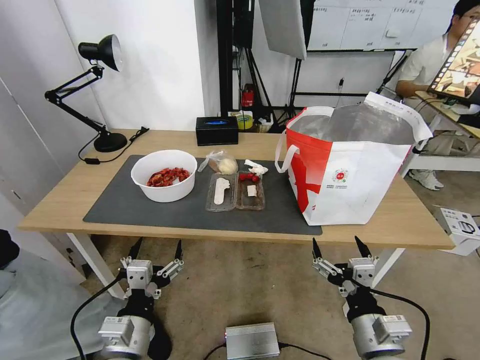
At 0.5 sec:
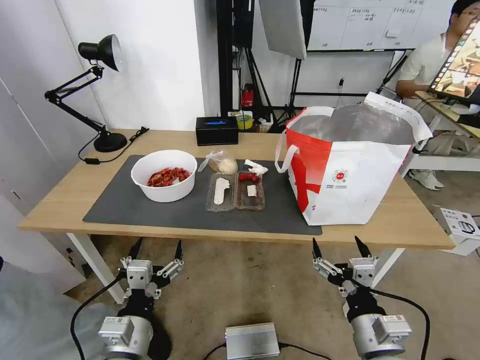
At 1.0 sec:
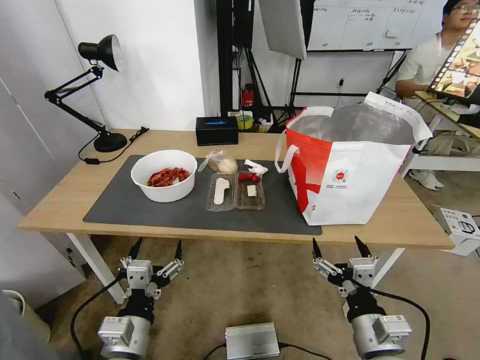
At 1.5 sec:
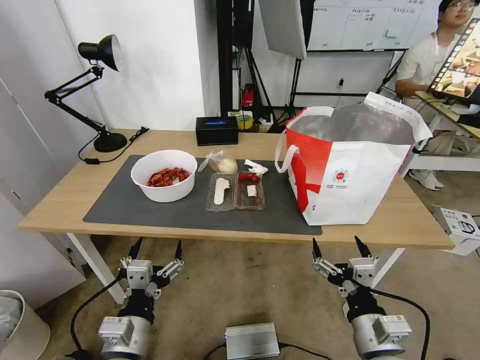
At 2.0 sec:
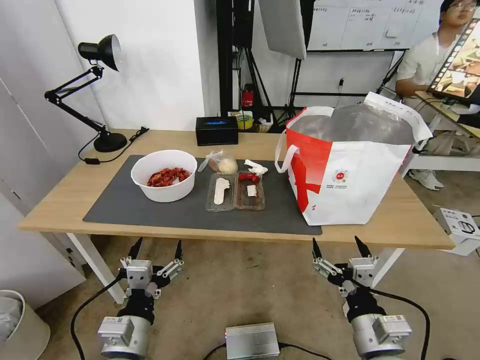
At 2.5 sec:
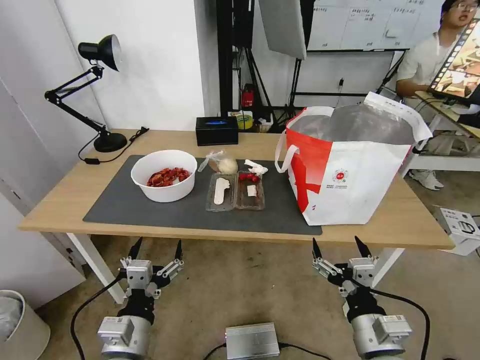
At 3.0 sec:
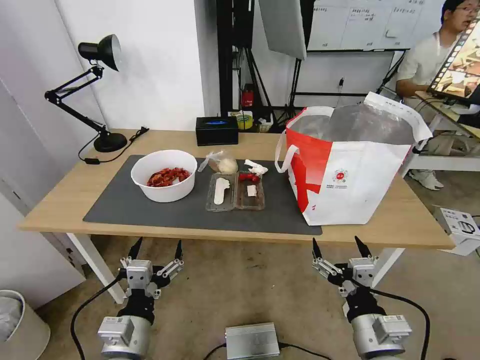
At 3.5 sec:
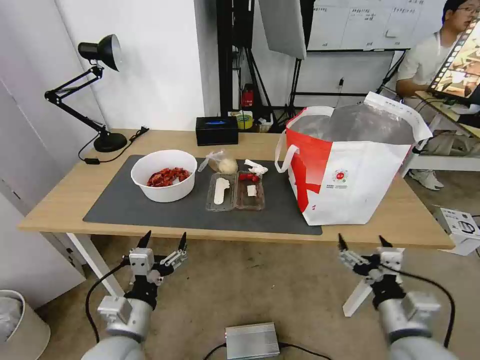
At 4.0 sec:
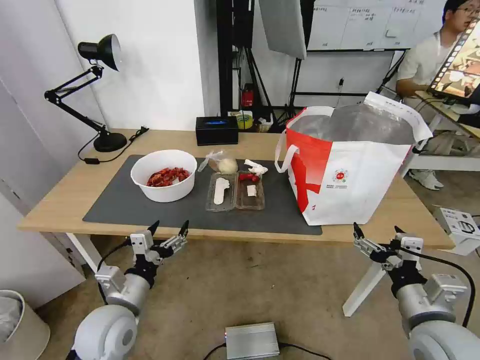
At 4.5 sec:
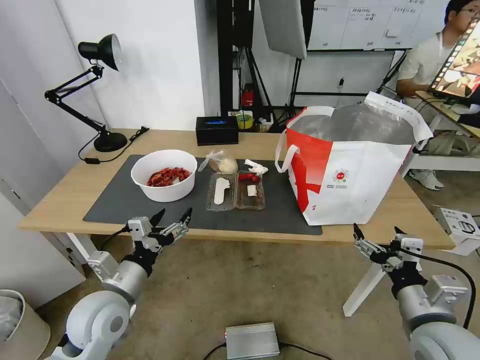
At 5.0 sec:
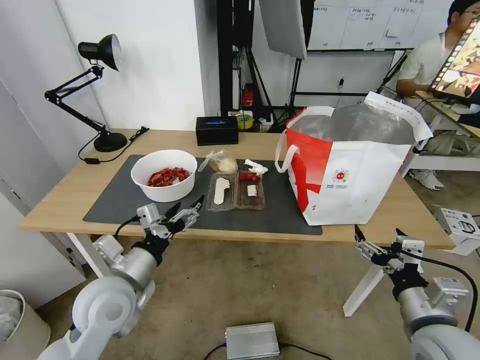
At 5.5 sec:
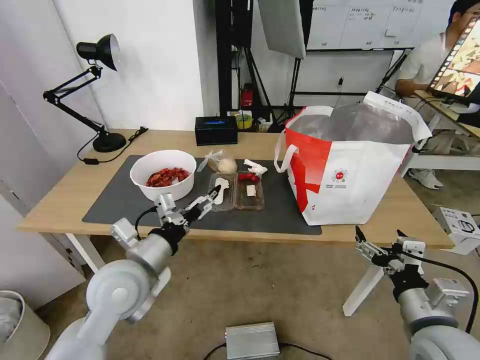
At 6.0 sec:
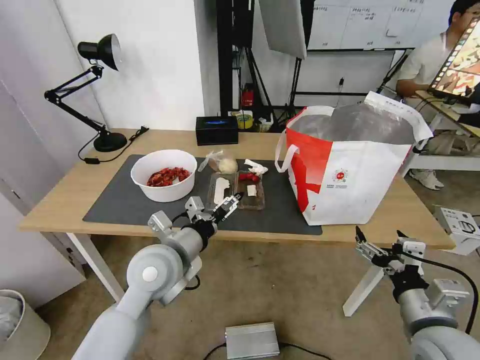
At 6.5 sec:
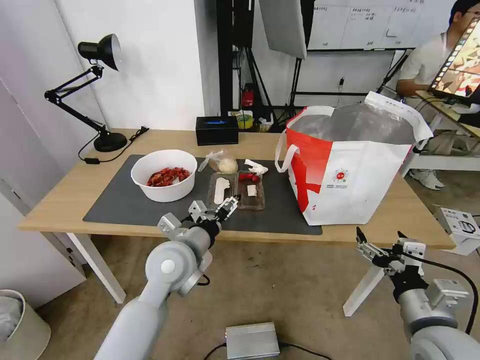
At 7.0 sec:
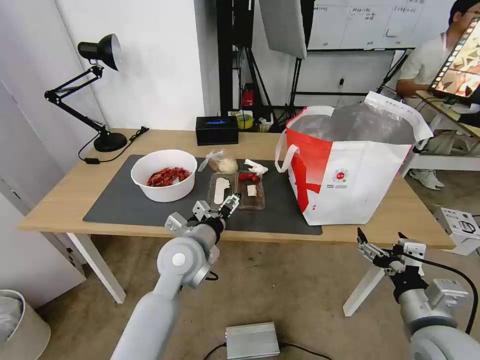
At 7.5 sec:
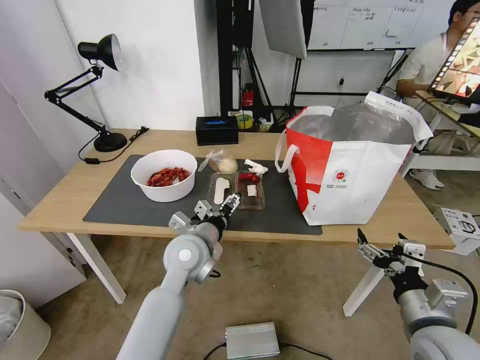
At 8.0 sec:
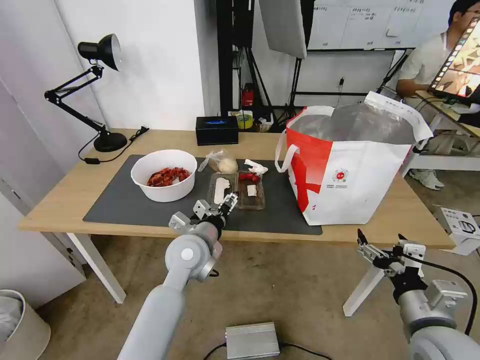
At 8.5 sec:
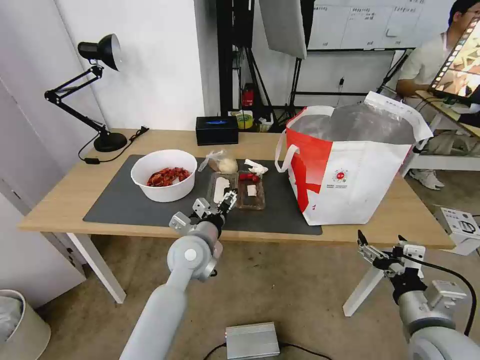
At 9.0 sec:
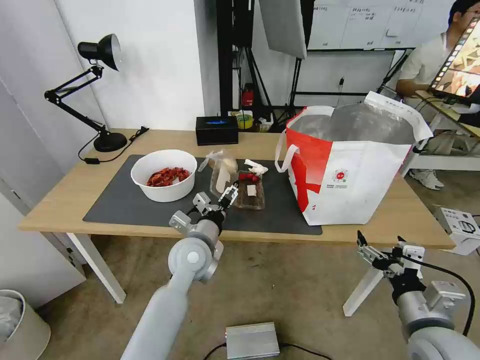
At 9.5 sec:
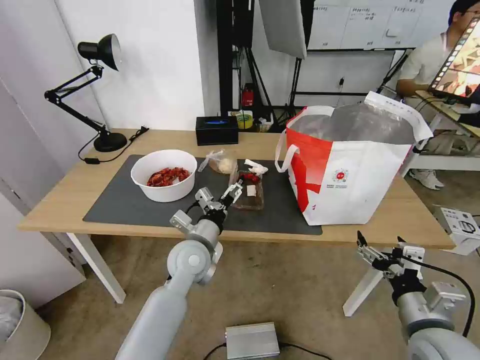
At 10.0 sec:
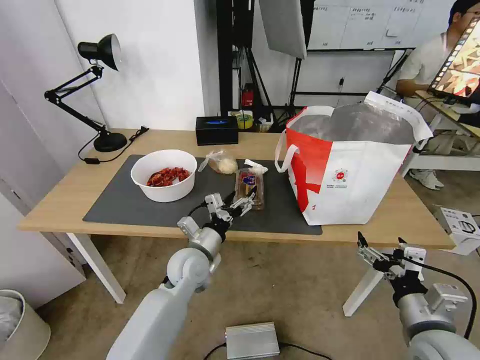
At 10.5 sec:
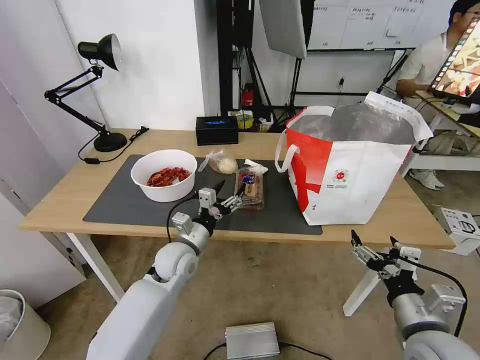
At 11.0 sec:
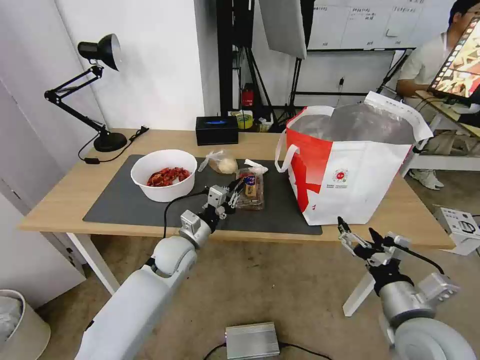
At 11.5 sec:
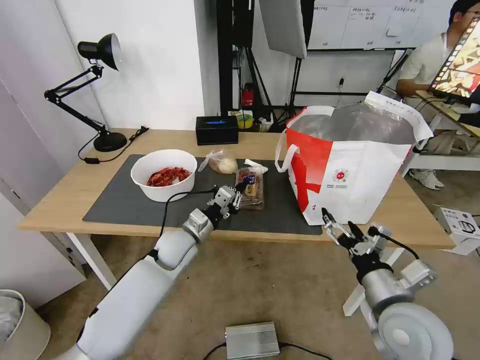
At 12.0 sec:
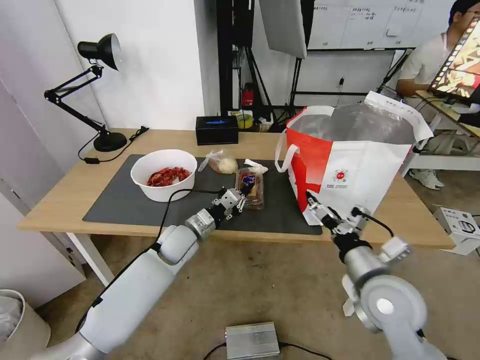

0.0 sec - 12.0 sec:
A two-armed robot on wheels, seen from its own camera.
Task of the whole recording: Pick up the trash from the table and place it into the takeout bag.
2.0 sec - 4.0 sec: The right gripper shifts some 10 cm to the right. Meanwhile the left gripper moves forward, roughly 10 cm.
4.0 sec - 6.0 sec: The left gripper is displaced to the right, upward and forward by approximately 15 cm.
6.0 sec - 8.0 sec: The left gripper shifts some 10 cm forward and downward.
8.0 sec - 10.0 sec: The left gripper goes about 5 cm downward.
10.0 sec - 12.0 sec: The left gripper is displaced forward by some 5 cm, and closes. Meanwhile the right gripper shifts approximately 10 cm forward and to the left.

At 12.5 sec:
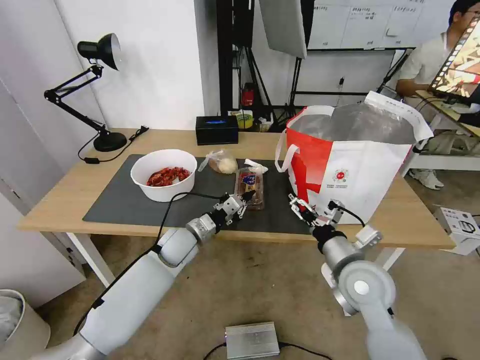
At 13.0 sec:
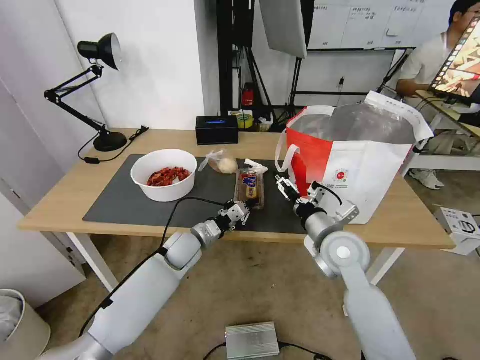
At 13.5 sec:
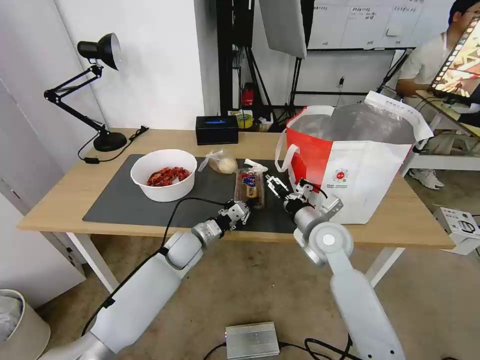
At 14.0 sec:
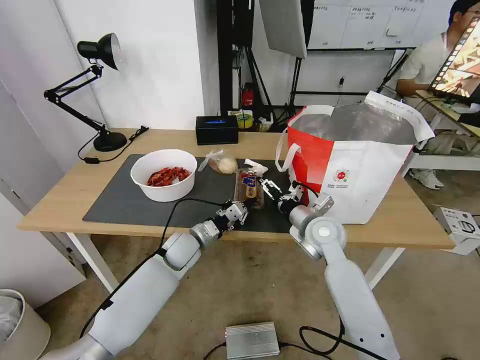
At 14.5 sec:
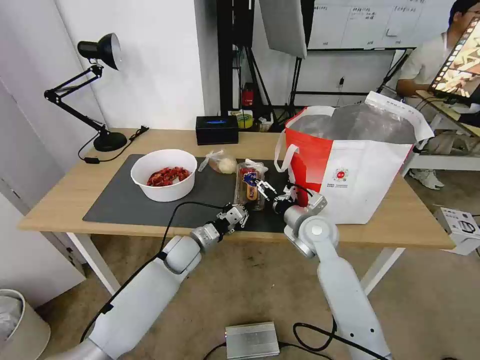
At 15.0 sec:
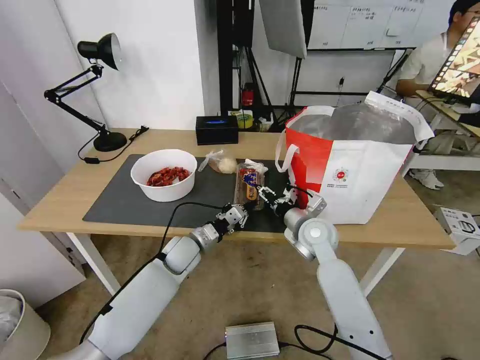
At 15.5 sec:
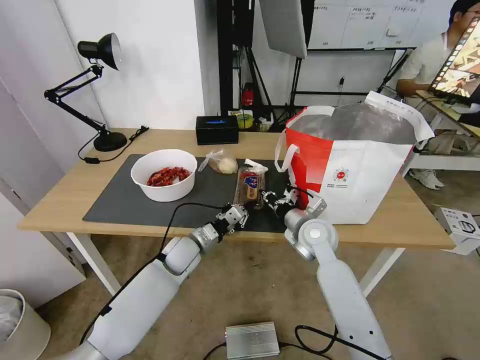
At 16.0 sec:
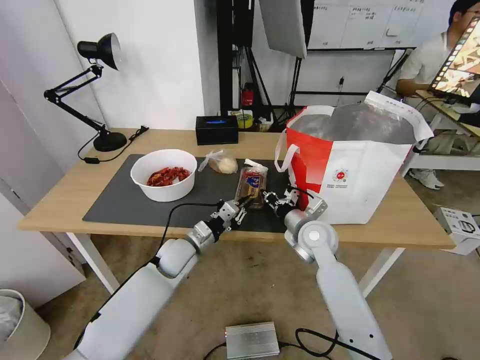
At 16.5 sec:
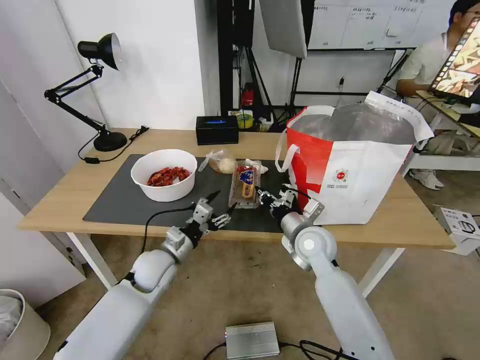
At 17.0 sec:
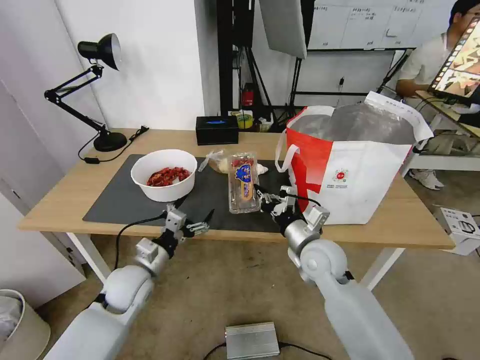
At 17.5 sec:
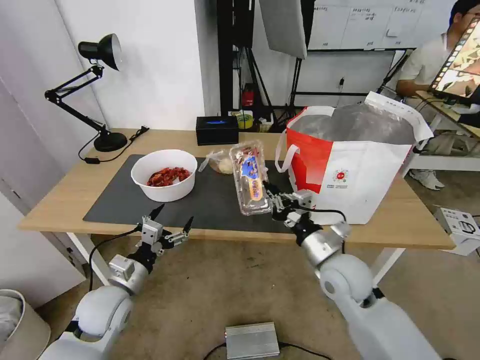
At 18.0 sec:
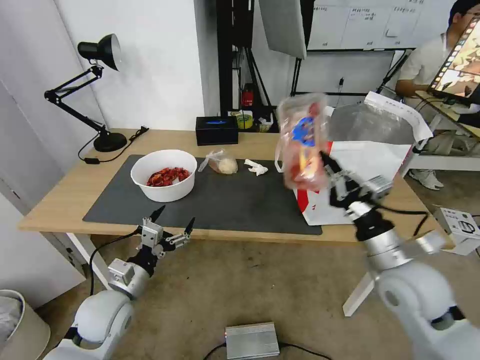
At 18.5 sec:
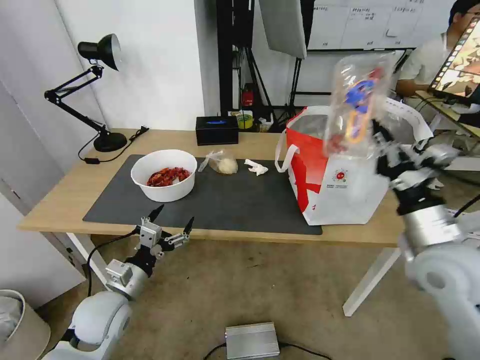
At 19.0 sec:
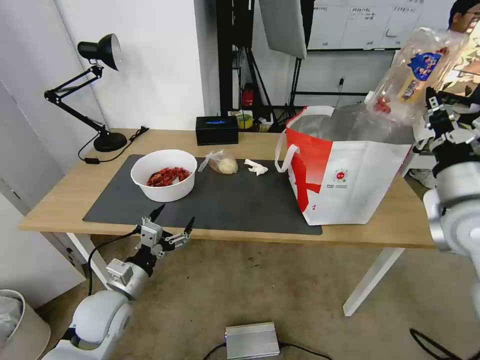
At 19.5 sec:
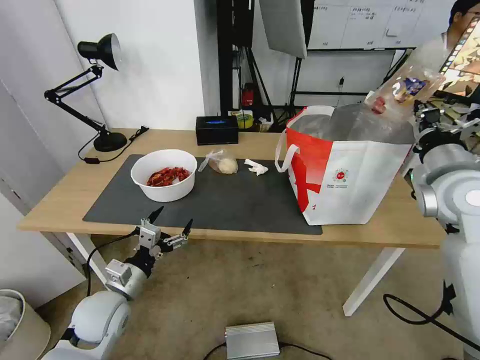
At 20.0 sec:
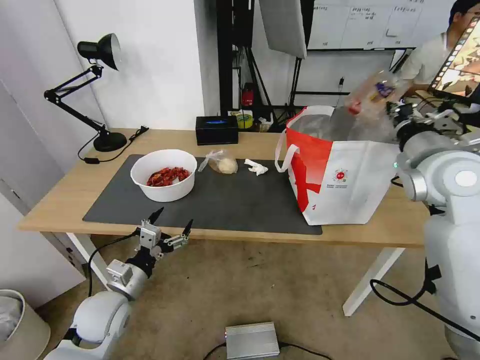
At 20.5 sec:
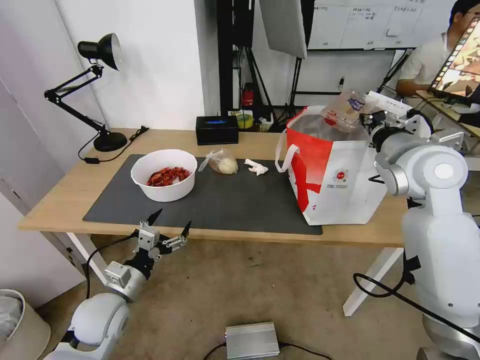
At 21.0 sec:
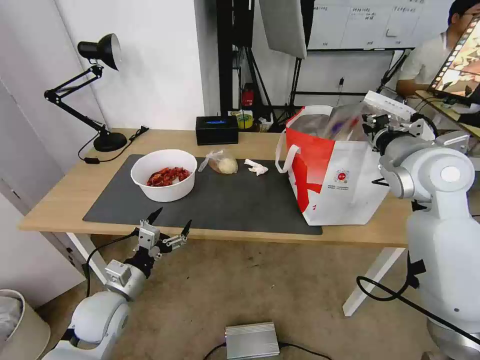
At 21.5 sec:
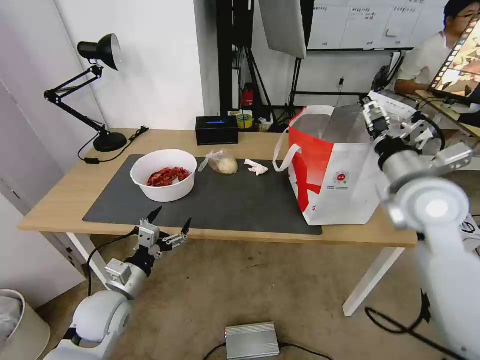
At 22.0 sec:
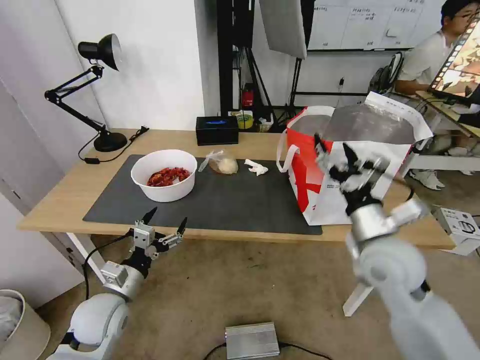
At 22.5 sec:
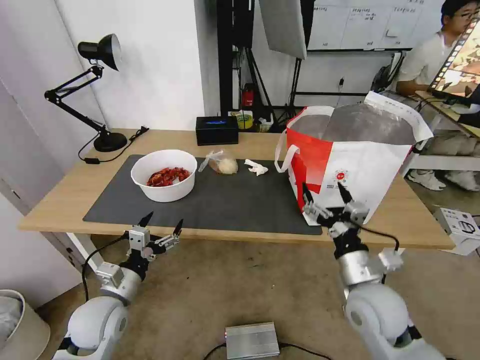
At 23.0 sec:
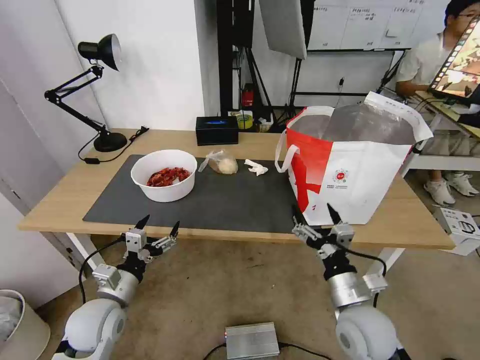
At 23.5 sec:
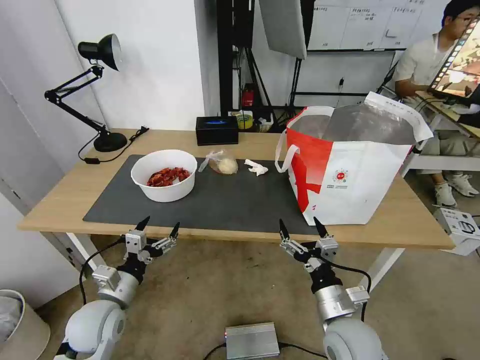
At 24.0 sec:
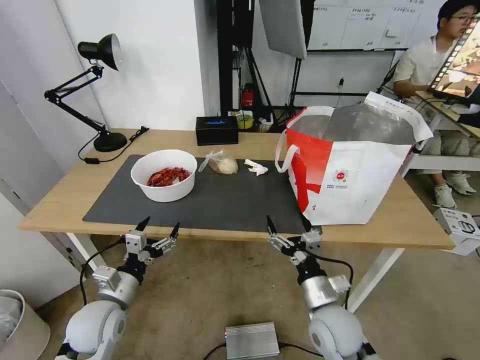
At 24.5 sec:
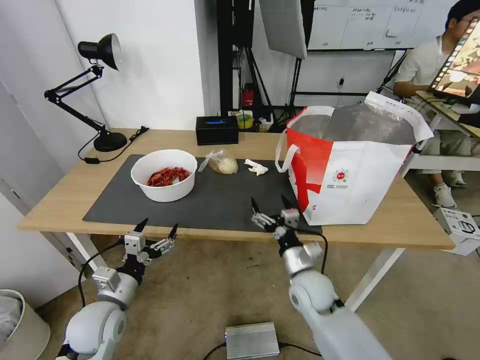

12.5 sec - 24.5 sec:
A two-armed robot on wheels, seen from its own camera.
Task of the whole recording: Pick up the trash from the table and place it into the takeout bag.
12.5 sec - 14.5 sec: The right gripper is displaced forward by about 15 cm.
14.5 sec - 16.5 sec: The right gripper closes its fingers; the left gripper moves backward, roughly 5 cm, and opens up.
16.5 sec - 18.5 sec: The left gripper moves backward and to the left, some 15 cm; the right gripper moves to the right, upward and backward, about 25 cm.
18.5 sec - 20.5 sec: The right gripper is displaced forward and upward by approximately 15 cm.
20.5 sec - 22.5 sec: The right gripper travels downward and backward by about 25 cm, and opens its fingers.
22.5 sec - 24.5 sec: The right gripper goes some 15 cm downward, to the left and forward.

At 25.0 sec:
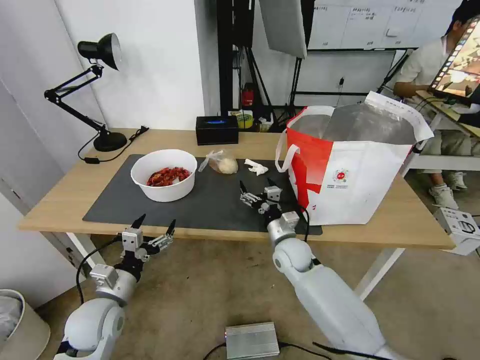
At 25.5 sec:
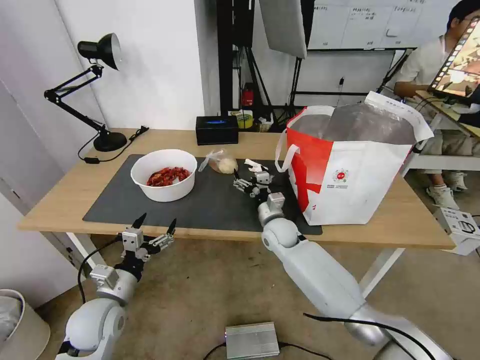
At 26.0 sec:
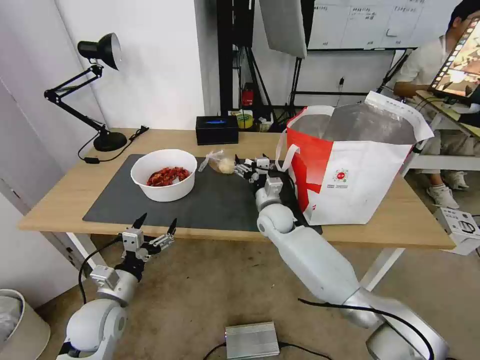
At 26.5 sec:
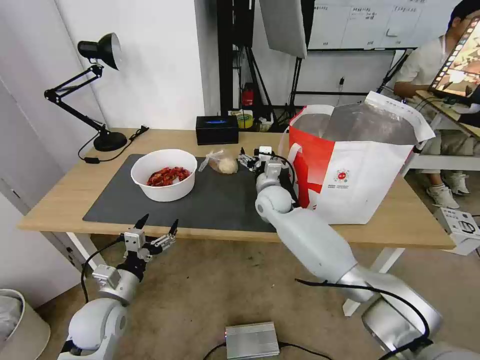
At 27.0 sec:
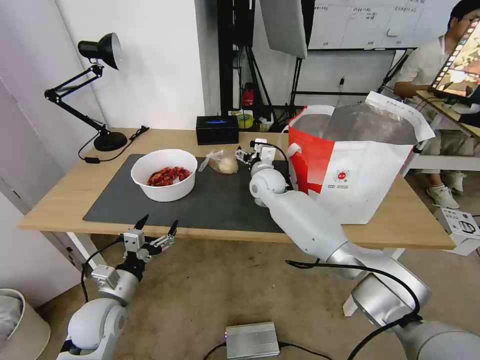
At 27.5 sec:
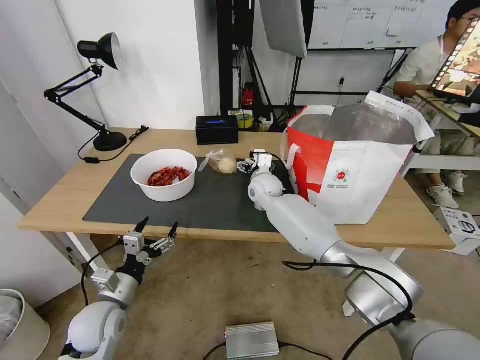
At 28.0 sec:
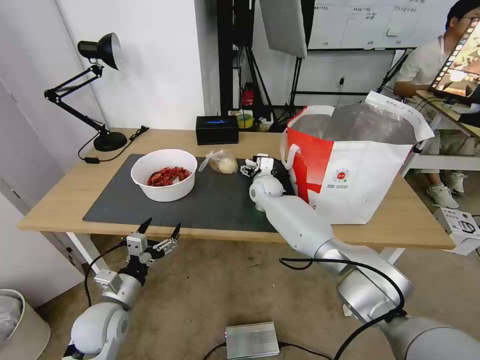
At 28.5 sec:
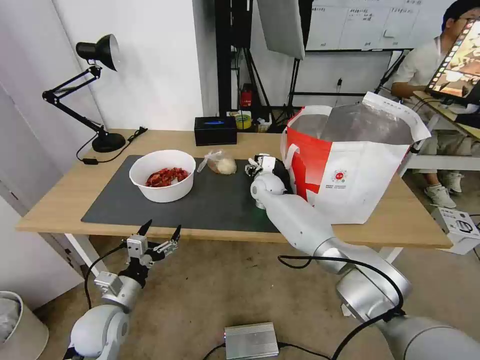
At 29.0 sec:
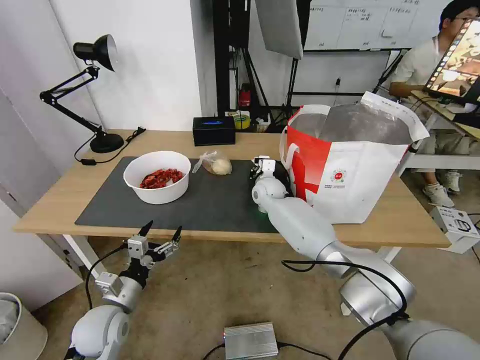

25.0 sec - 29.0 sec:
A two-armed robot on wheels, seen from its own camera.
Task of the whole recording: Pick up the trash from the table and place it into the takeout bag.
25.0 sec - 27.0 sec: The right gripper goes roughly 20 cm forward and upward.
27.0 sec - 29.0 sec: The right gripper travels downward by about 5 cm, and closes its fingers.
